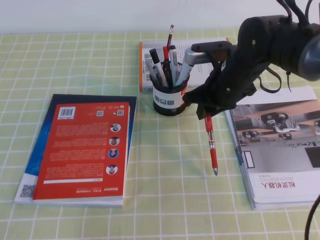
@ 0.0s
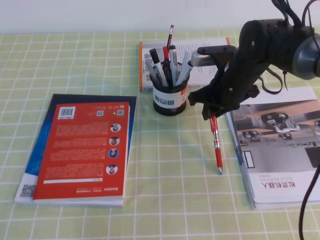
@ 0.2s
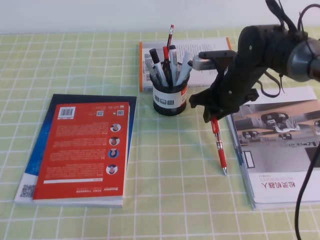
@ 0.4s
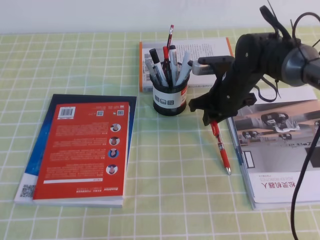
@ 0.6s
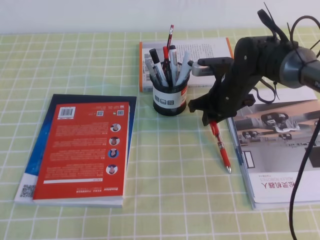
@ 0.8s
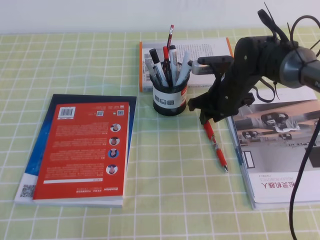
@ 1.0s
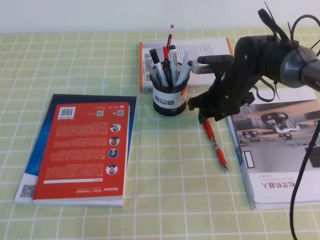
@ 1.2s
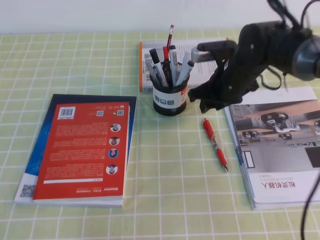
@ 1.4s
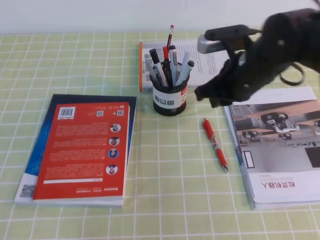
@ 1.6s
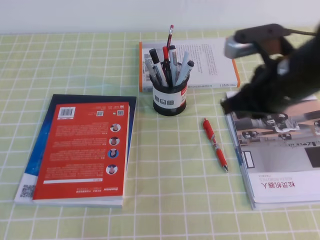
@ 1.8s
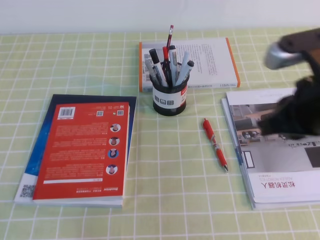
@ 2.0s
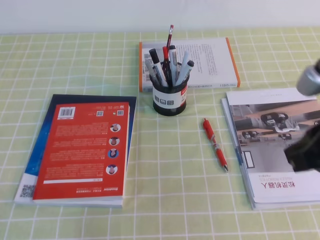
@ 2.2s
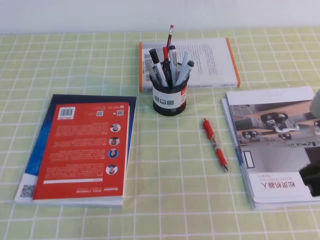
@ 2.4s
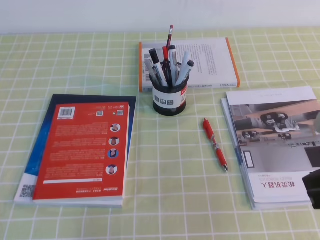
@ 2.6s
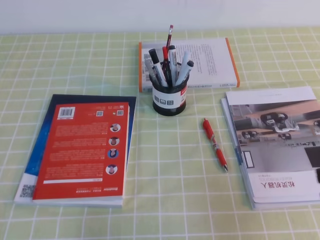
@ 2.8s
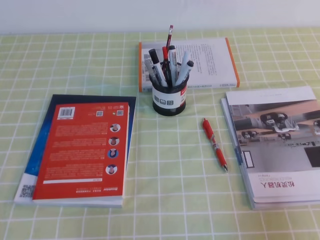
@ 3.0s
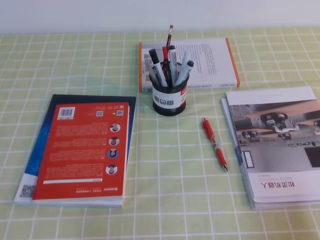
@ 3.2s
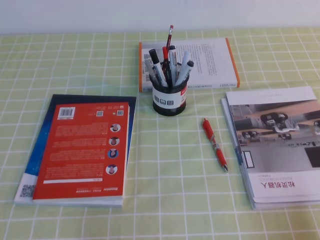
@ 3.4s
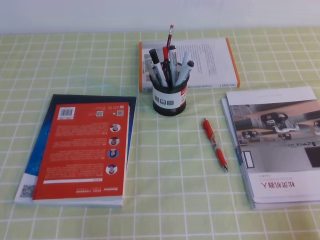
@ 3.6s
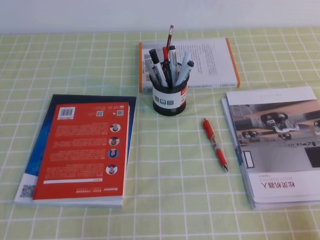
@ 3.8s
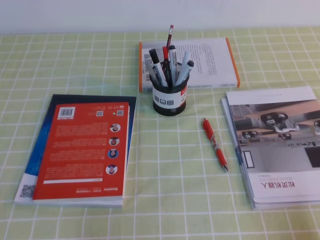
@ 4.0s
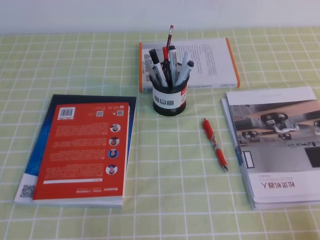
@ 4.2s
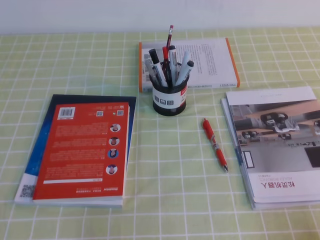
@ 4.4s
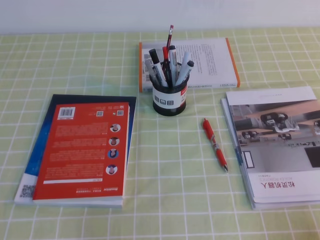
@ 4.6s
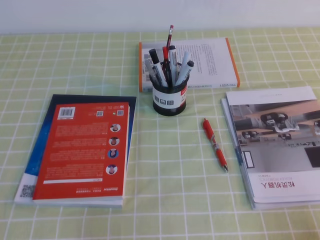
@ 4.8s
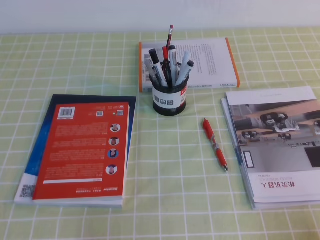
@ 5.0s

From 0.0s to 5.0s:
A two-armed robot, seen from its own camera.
Step, from 0.0s to 5.0s: Pick up the pen from the pen holder.
From 0.0s to 1.6s: The right gripper moves about 5 cm downward and comes back, and opens, then closes once more.
From 1.6s to 3.4s: The right gripper goes about 35 cm backward and to the right.
